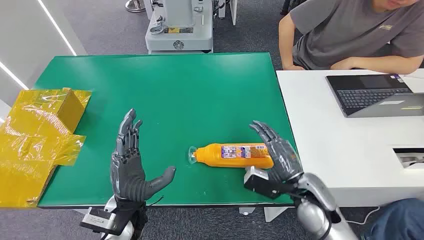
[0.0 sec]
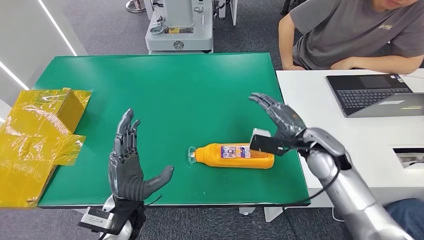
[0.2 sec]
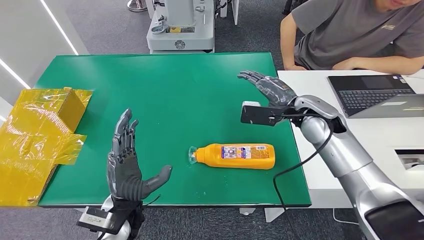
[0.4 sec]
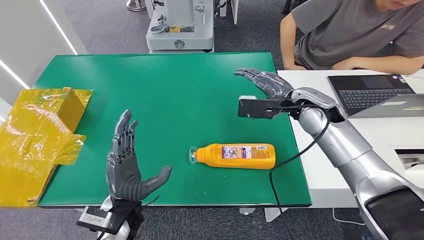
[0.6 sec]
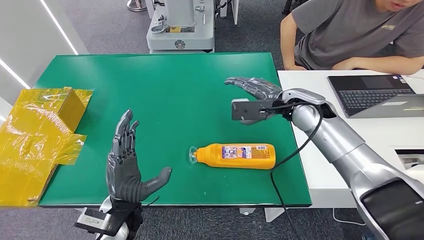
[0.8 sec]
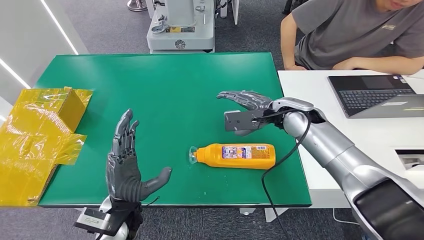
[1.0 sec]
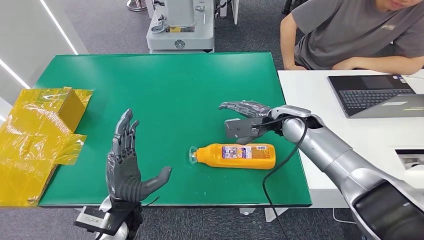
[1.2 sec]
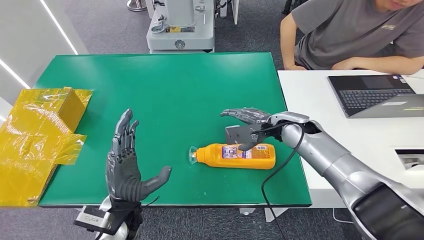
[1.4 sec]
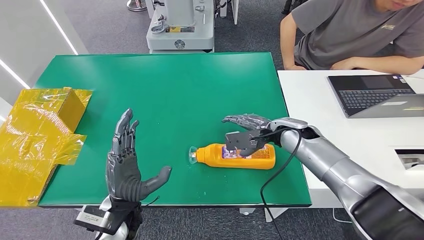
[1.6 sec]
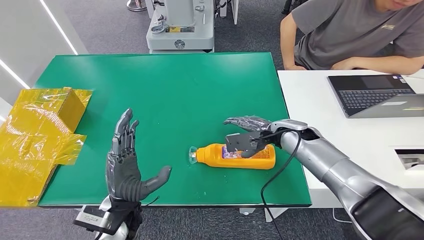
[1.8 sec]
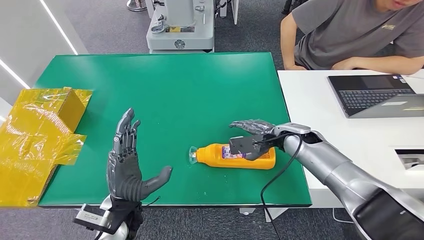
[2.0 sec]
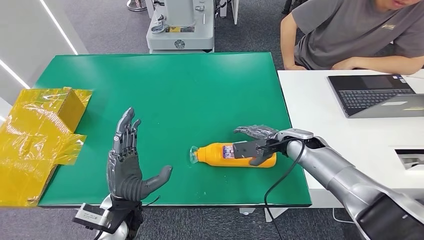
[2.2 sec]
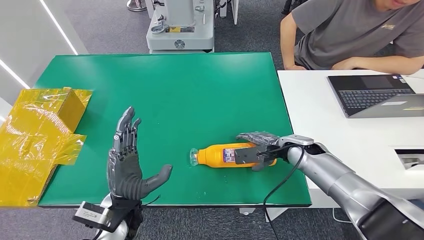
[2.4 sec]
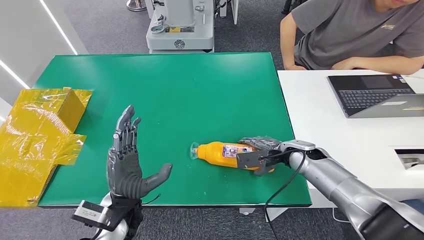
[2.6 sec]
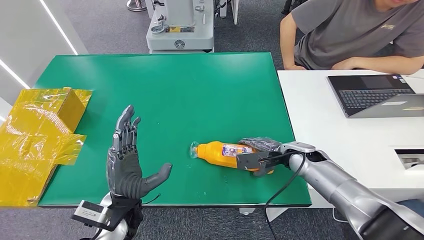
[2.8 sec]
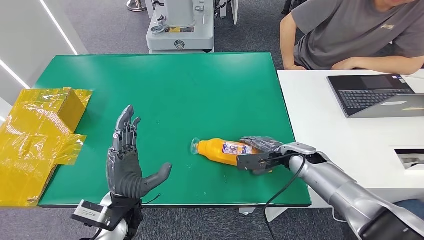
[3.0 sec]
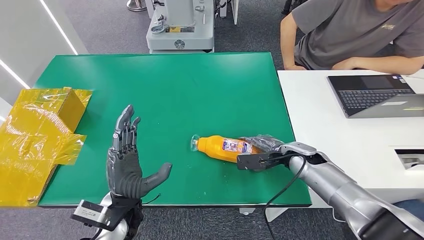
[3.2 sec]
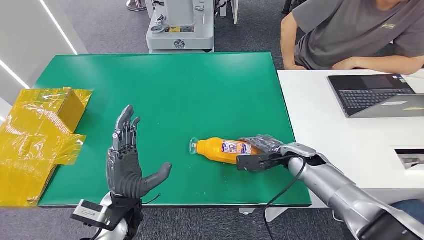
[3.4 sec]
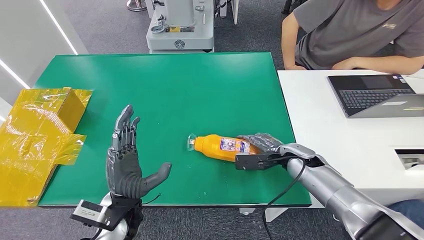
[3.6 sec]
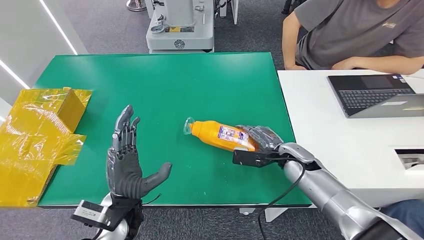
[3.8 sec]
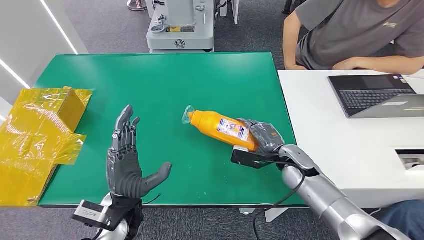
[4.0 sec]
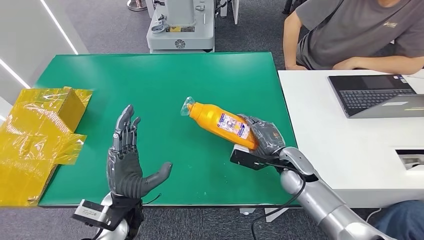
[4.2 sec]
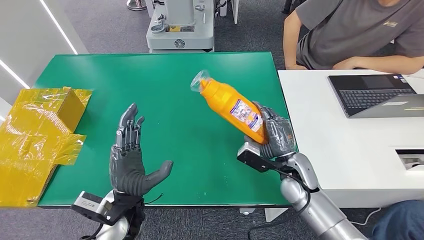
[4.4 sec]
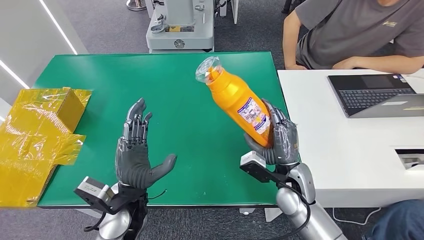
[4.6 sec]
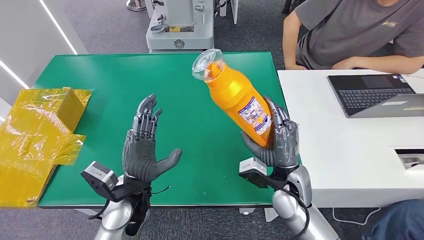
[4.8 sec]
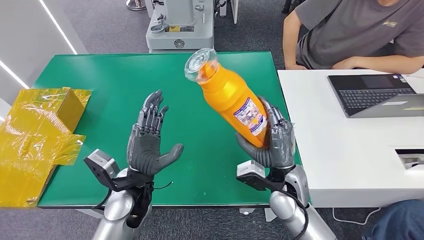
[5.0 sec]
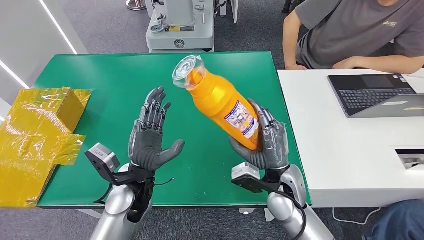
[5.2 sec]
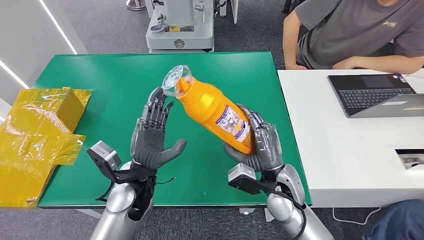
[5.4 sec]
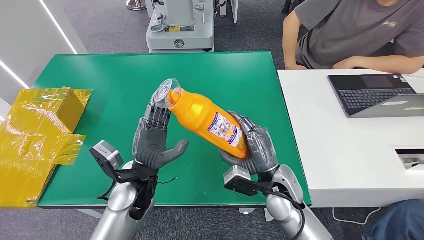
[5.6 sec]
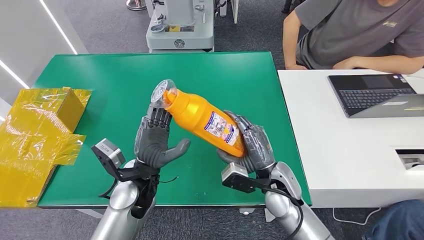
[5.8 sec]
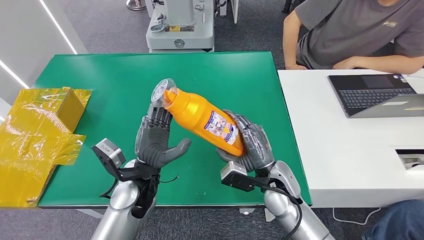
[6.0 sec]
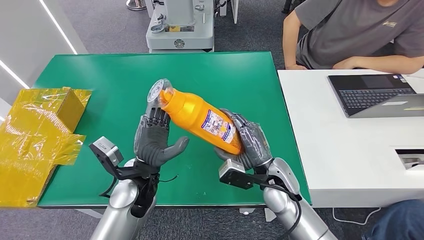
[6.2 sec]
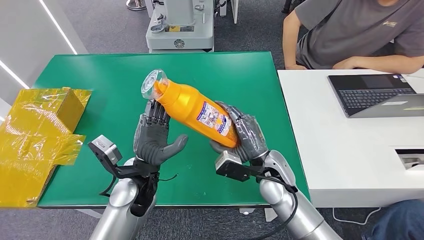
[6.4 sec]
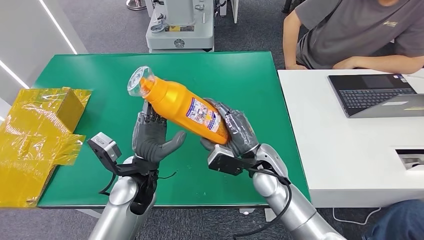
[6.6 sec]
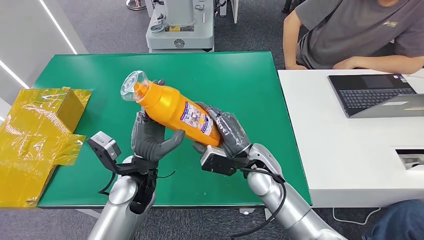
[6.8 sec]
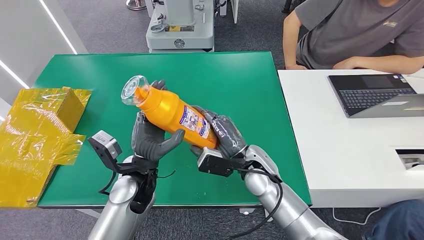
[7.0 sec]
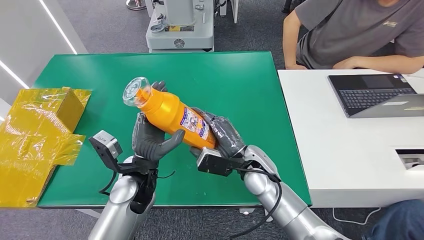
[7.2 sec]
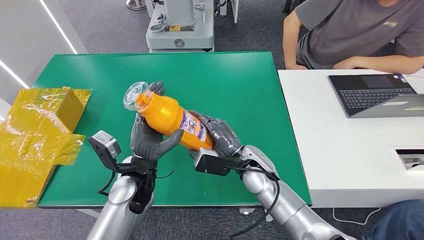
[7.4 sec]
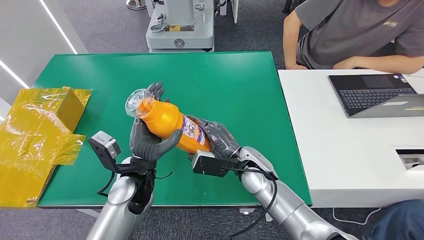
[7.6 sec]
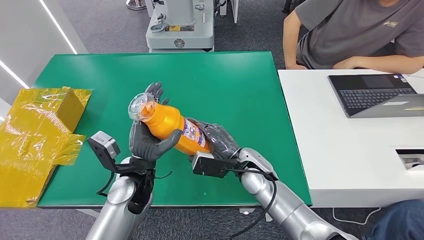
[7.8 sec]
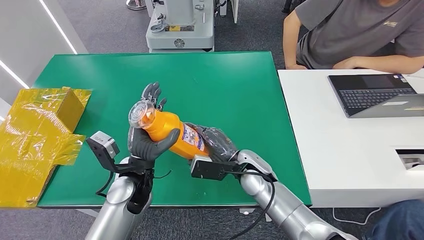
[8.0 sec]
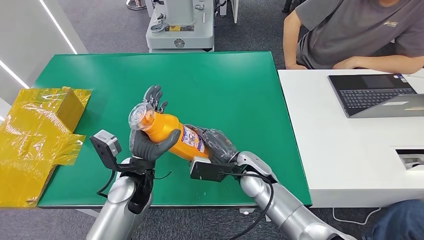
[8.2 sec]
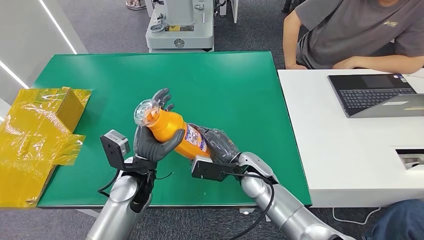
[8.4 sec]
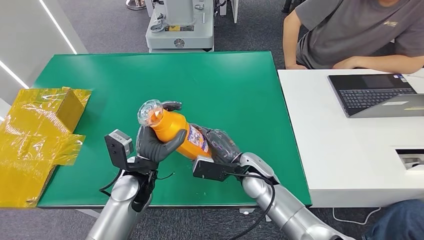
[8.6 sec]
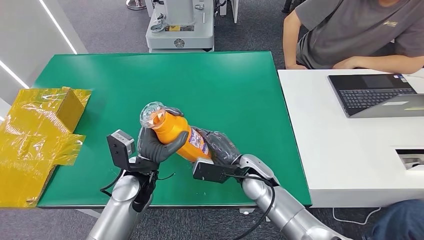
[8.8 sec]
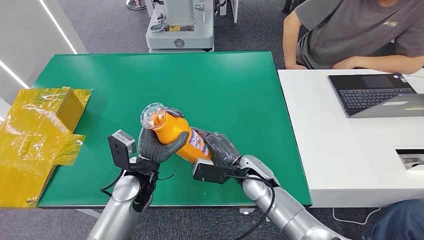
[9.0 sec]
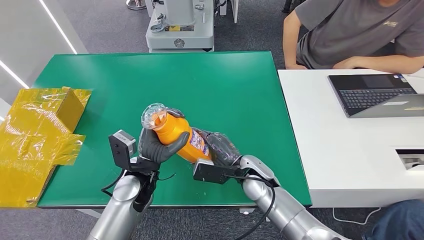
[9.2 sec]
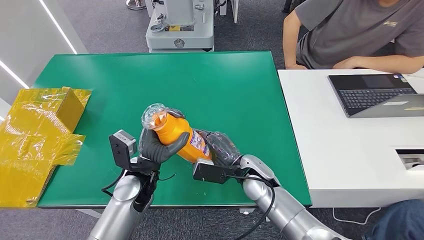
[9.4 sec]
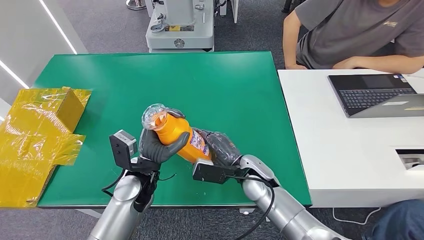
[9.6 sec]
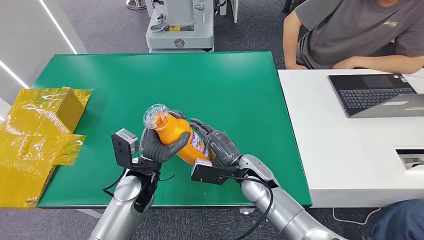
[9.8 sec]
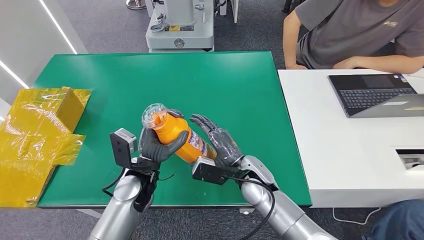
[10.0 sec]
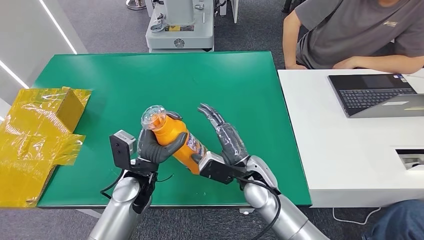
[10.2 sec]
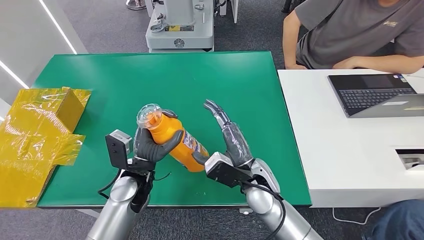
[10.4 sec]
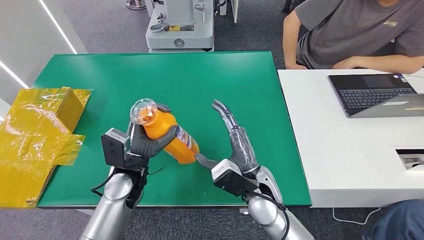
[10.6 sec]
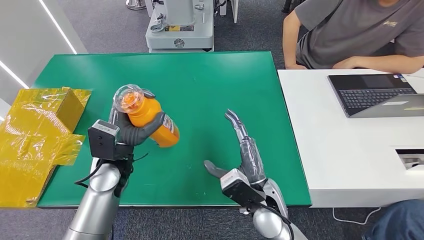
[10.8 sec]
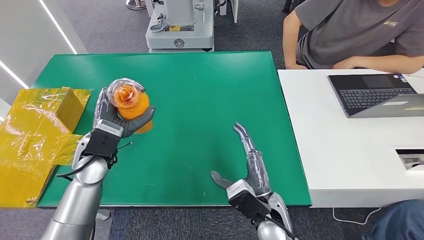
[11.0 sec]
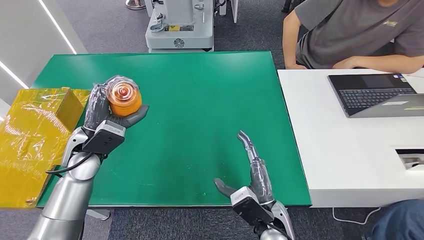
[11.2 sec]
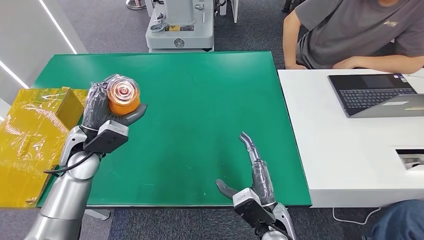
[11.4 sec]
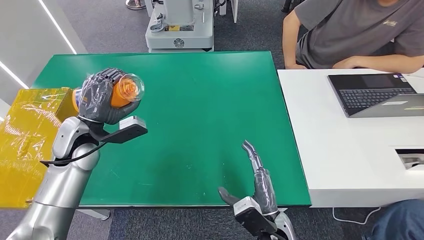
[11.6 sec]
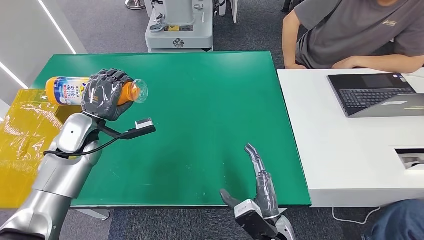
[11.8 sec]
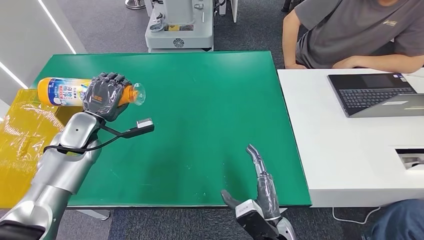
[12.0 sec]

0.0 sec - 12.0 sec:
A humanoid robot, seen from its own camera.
Step, 0.0 sec - 4.4 sec: Pick up the bottle from the table.
1.6 sec - 3.0 sec: The right hand travels downward by roughly 5 cm.
3.0 sec - 4.4 sec: The right hand goes about 5 cm backward.
4.4 sec - 6.0 sec: The right hand heads to the left, covering some 5 cm; the left hand moves forward, approximately 5 cm.
6.0 sec - 7.6 sec: The right hand travels to the left by approximately 5 cm.
7.6 sec - 9.0 sec: The hands move only a little.
9.0 sec - 10.4 sec: The right hand ends up roughly 5 cm from where it was.
10.4 sec - 12.0 sec: The left hand heads to the left and forward, covering about 20 cm, while the right hand heads backward and downward, covering some 15 cm.

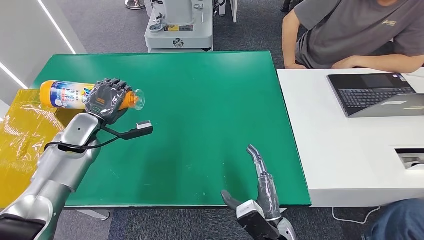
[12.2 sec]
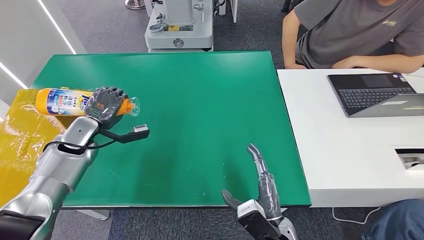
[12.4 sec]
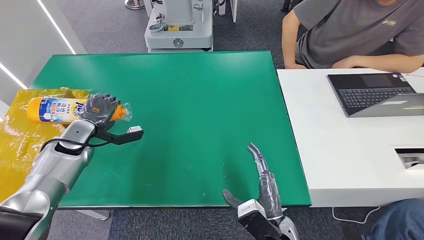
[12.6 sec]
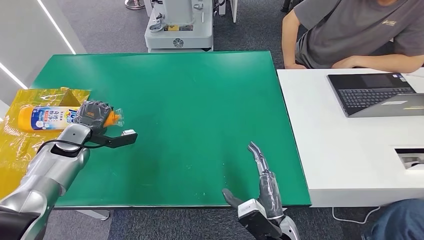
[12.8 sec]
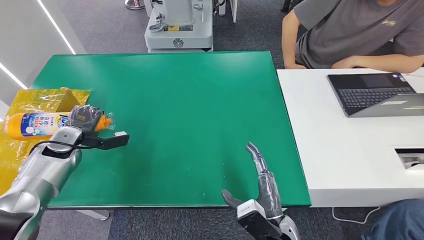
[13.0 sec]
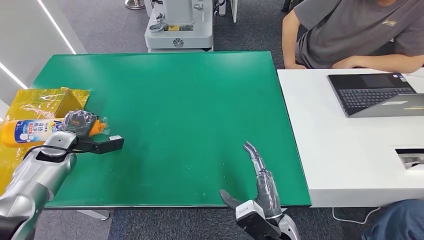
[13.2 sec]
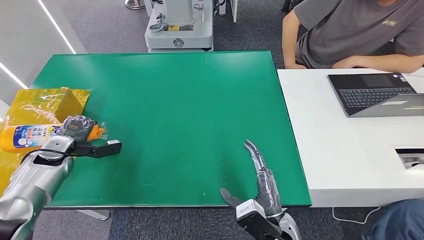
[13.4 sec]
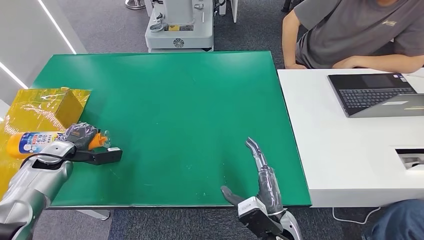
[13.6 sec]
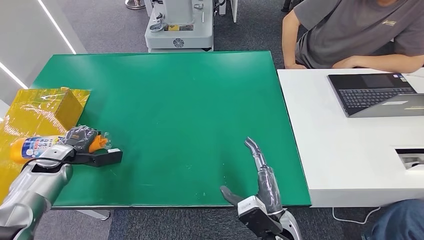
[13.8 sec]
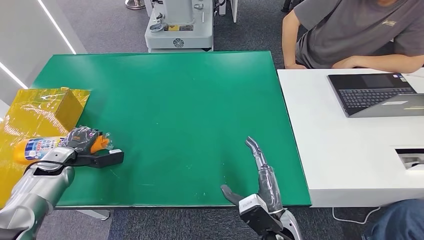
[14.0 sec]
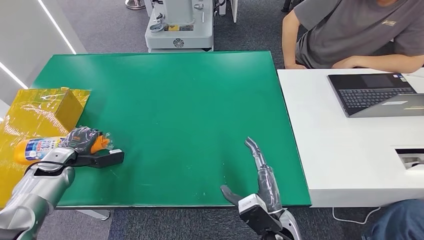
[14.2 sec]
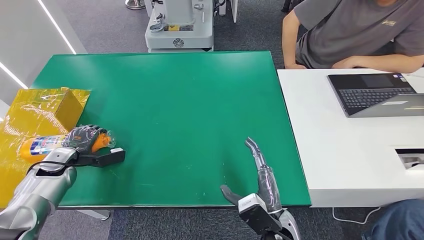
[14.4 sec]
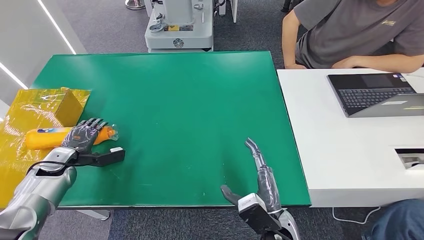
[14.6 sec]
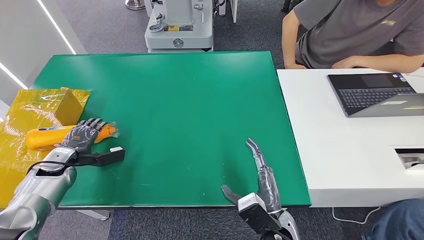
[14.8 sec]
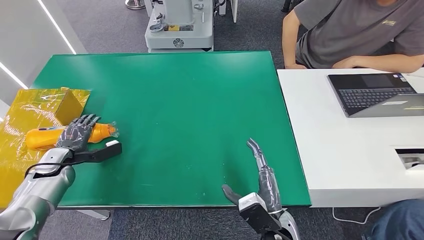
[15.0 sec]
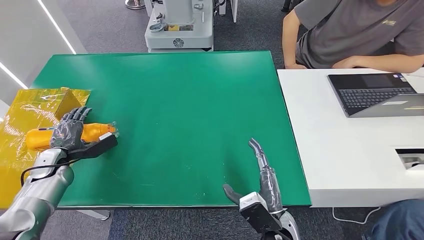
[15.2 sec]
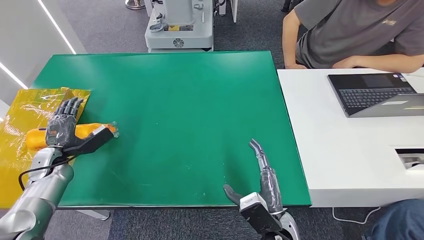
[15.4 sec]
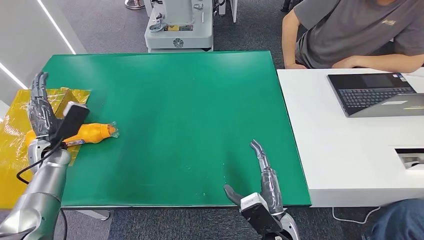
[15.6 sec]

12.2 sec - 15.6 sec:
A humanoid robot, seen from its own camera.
Step, 12.2 sec - 15.6 sec: Turn the bottle to the front side.
12.2 sec - 13.8 sec: The left hand is displaced to the left and downward by roughly 15 cm.
